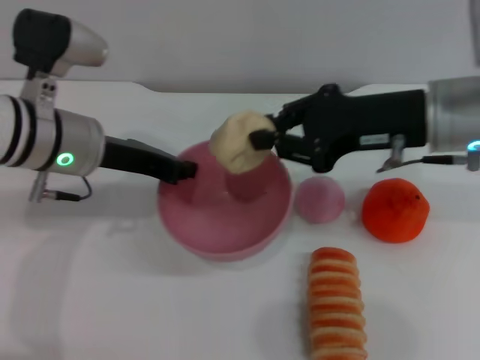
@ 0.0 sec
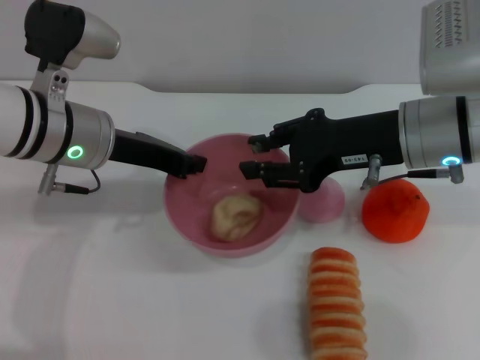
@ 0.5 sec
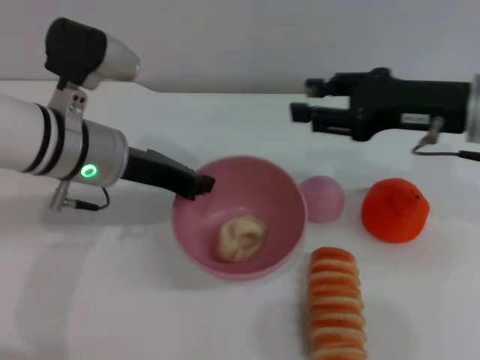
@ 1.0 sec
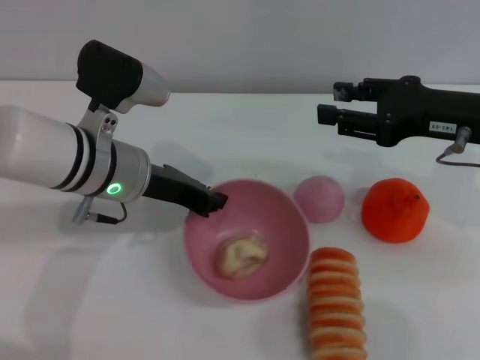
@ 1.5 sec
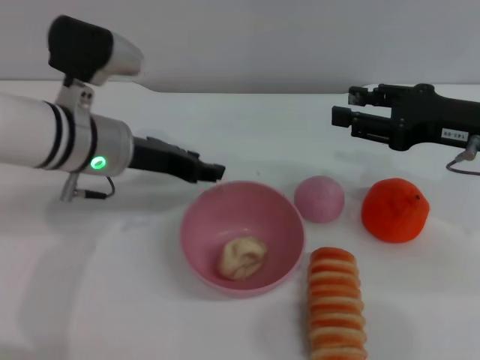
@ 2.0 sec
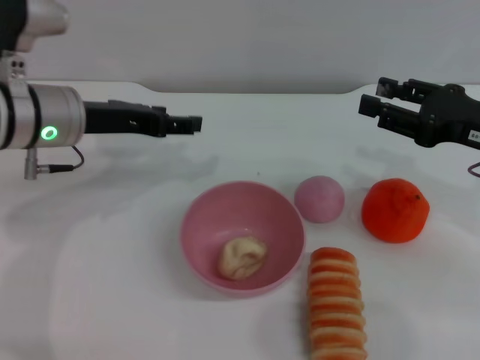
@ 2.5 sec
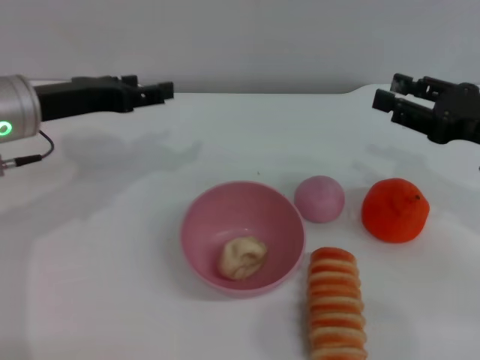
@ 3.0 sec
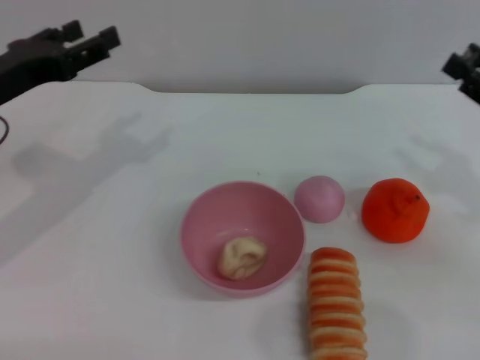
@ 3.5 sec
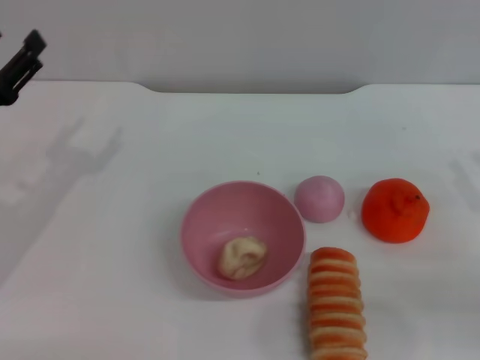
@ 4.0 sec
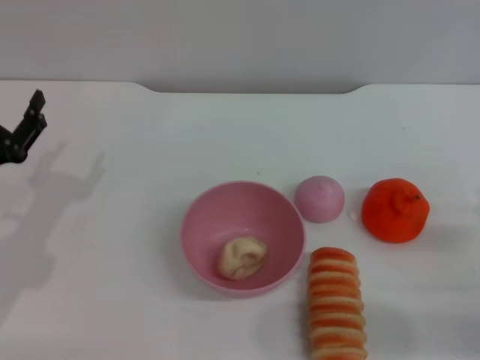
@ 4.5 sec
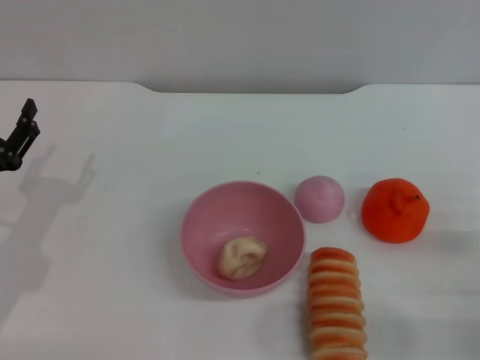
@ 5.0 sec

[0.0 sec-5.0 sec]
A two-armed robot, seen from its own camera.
Task of the whole recording: put the egg yolk pastry into the pink bowl and pour it out repeatedly.
Step, 1.0 sec to 2.0 sec: Place the bowl on the table.
0.0 sec to 2.5 sec: The left gripper opens up; the right gripper is displaced to the right by some 10 cm, and opens up.
2.5 sec to 5.0 sec: The right gripper is displaced backward, downward and to the right by about 20 cm; the left gripper is displaced backward, downward and to the left by roughly 20 cm.
